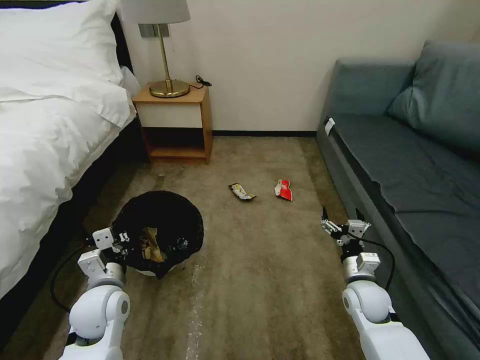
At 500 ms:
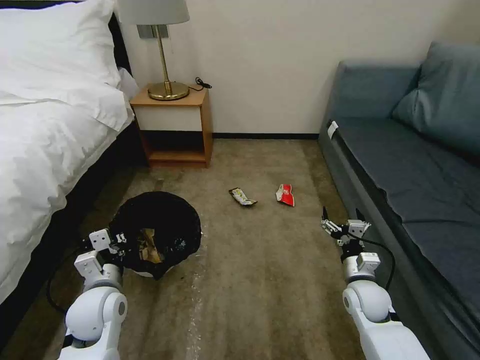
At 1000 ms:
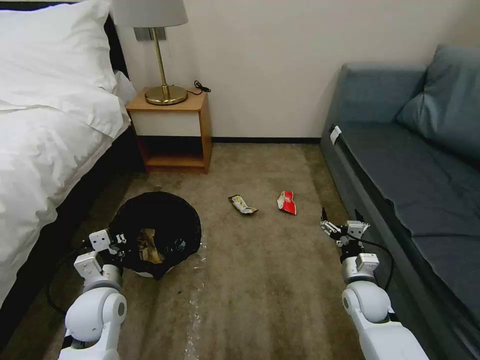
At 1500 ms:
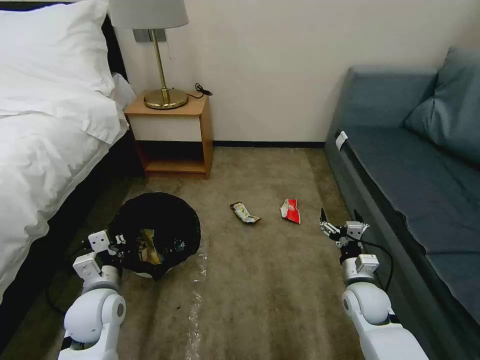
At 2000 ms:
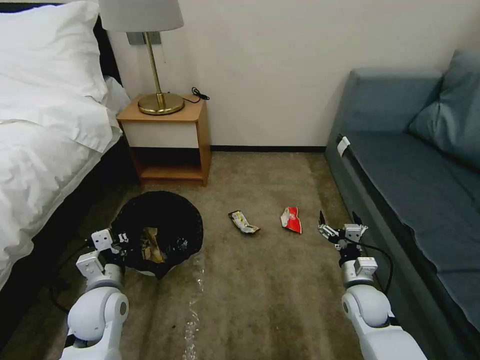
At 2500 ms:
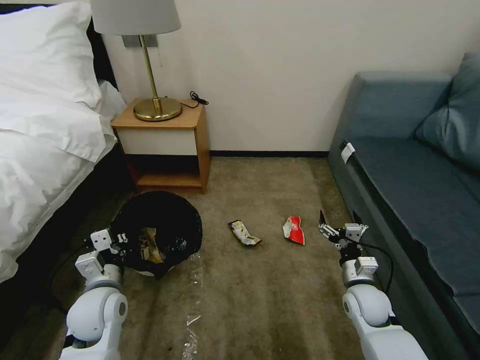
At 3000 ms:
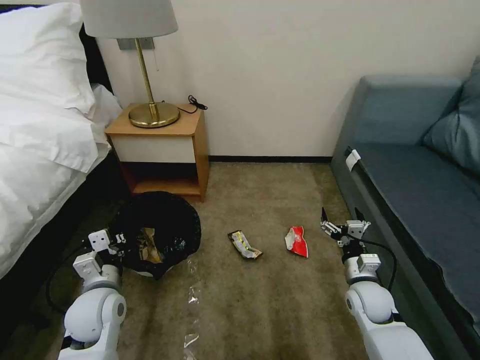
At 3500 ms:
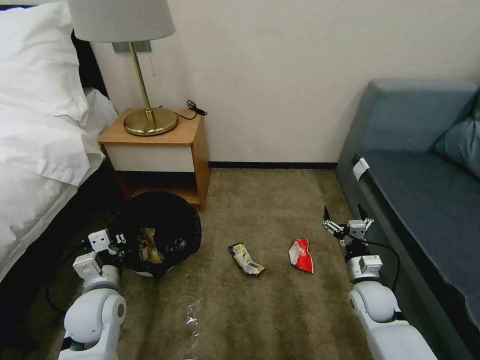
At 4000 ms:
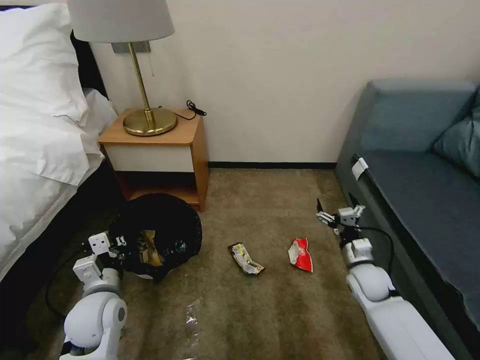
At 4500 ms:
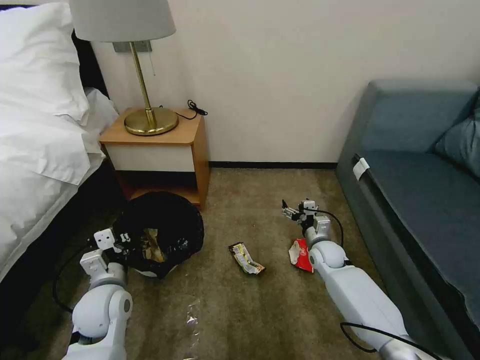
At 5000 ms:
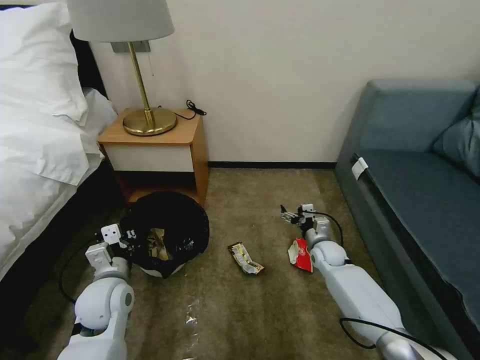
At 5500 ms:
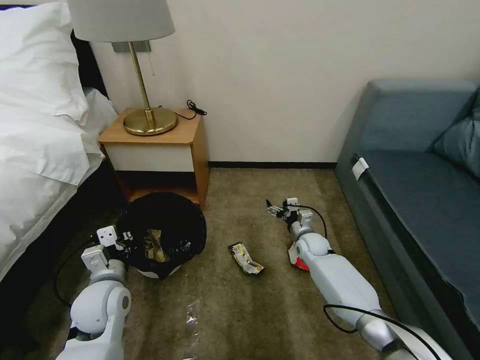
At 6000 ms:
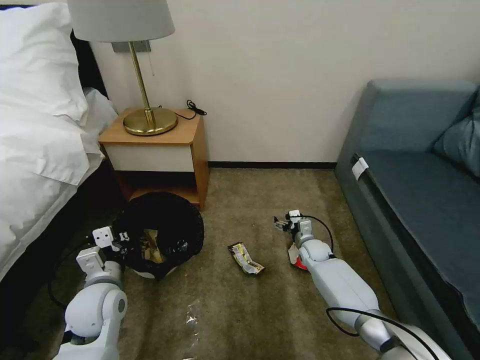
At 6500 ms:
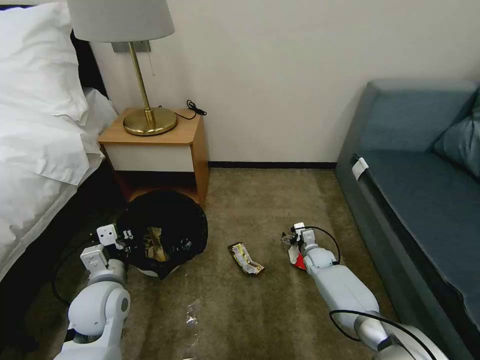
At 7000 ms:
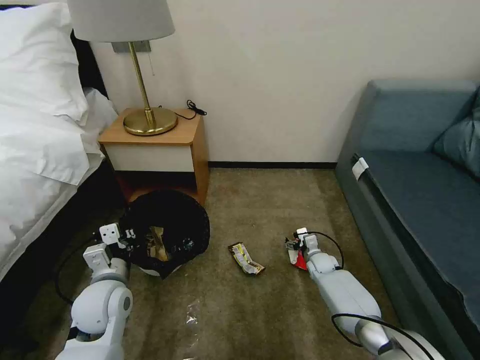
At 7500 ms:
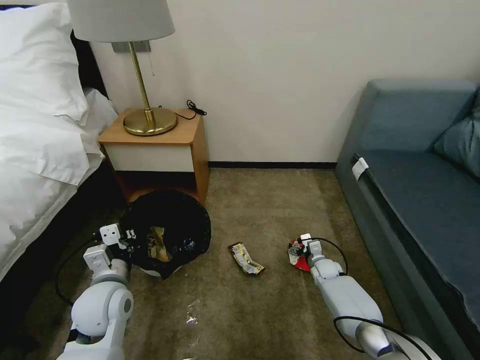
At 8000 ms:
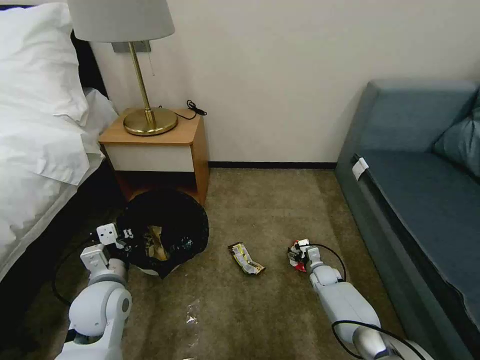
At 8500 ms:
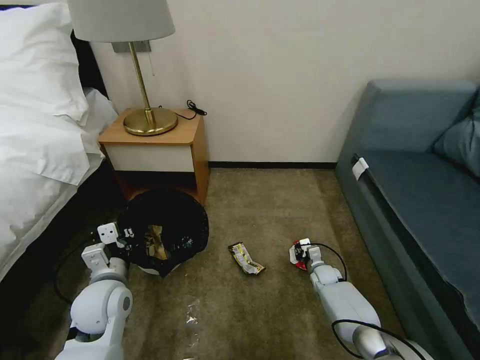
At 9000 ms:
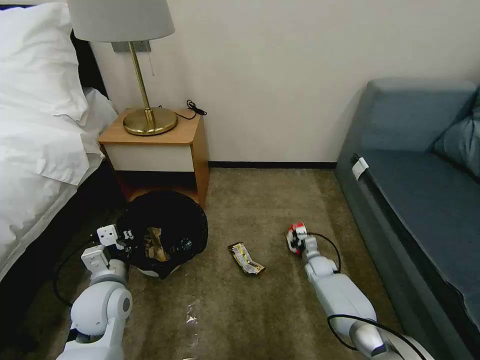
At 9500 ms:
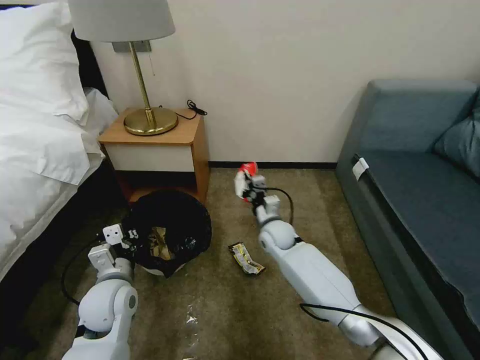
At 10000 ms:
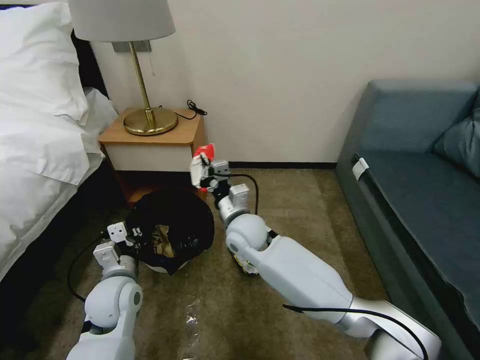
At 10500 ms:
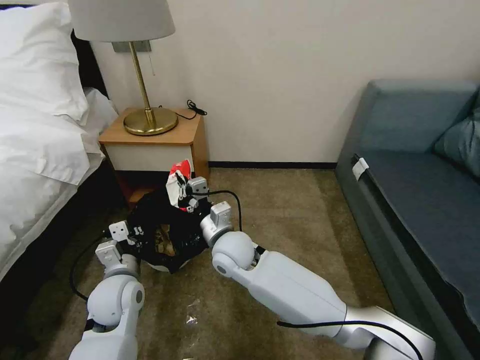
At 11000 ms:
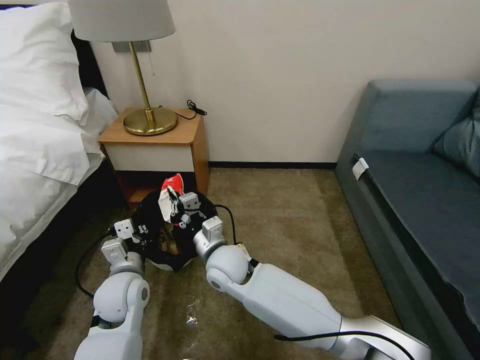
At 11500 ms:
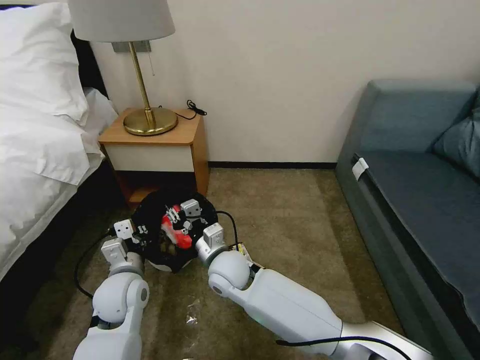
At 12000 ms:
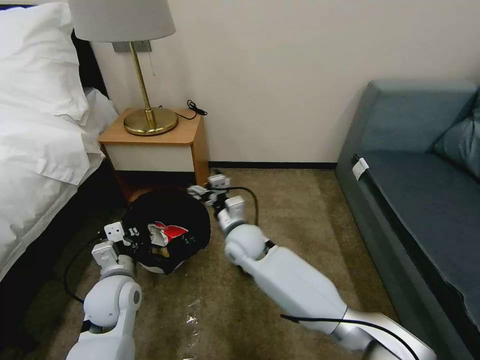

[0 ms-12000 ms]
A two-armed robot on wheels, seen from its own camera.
Task of the whole recording: Pick up the trash bin, then pick up the garbage on the floor and place it into the trash bin.
2000 ms to 4000 ms: The right gripper moves roughly 5 cm.
4000 ms to 6000 ms: The right gripper travels forward, to the left and downward by approximately 20 cm.
6000 ms to 8000 ms: The right gripper is displaced downward and backward by approximately 10 cm.
8000 ms to 10000 ms: The right gripper goes roughly 40 cm upward and to the left, and closes its fingers.
10000 ms to 12000 ms: The right gripper opens up.

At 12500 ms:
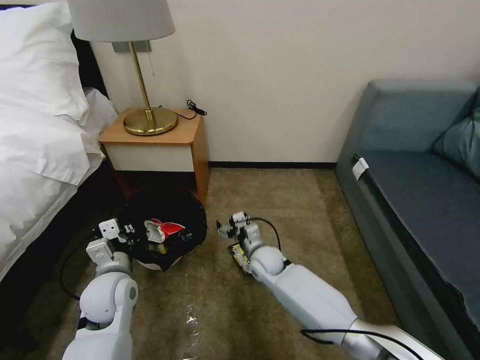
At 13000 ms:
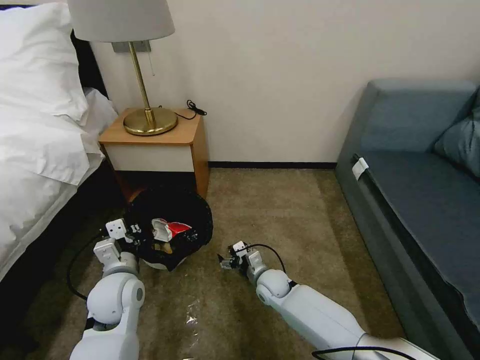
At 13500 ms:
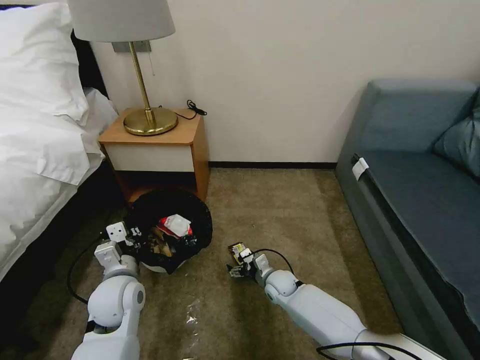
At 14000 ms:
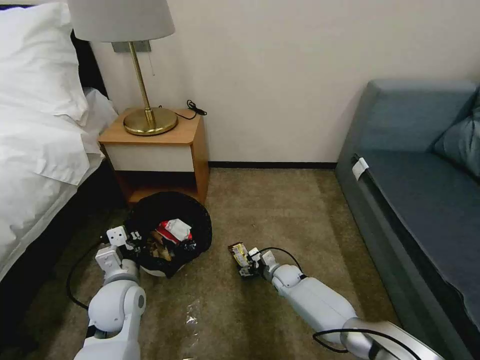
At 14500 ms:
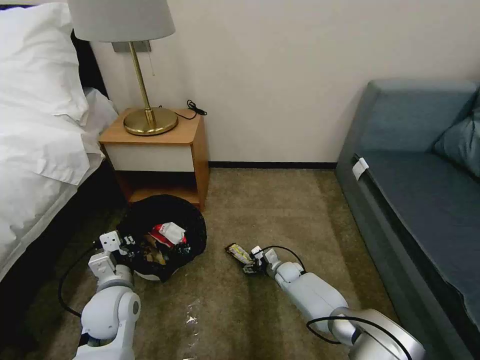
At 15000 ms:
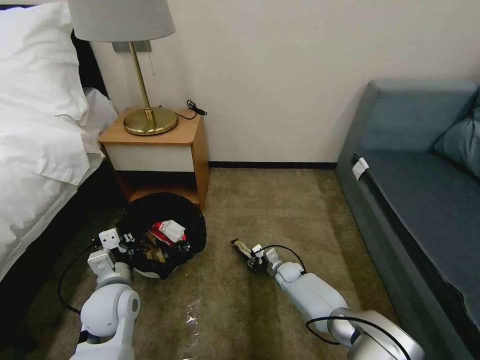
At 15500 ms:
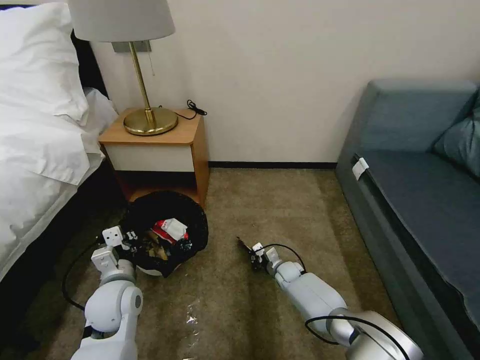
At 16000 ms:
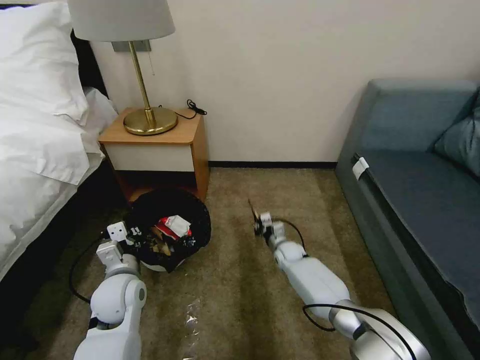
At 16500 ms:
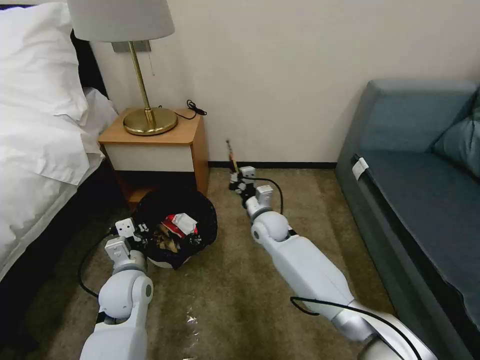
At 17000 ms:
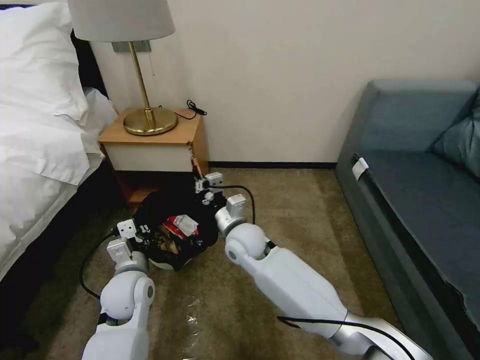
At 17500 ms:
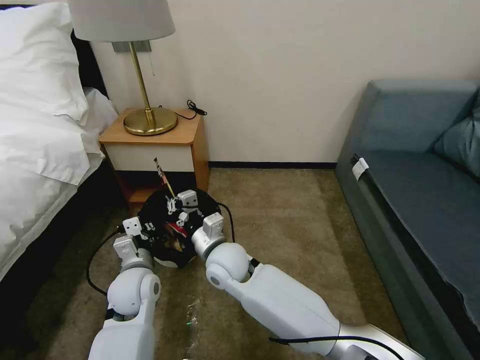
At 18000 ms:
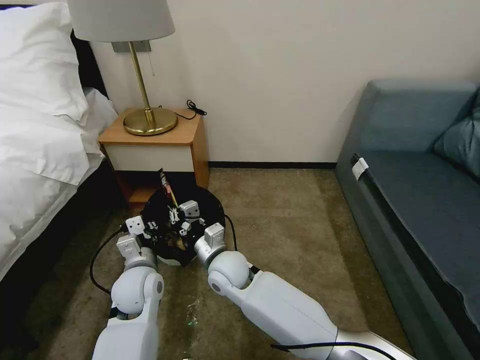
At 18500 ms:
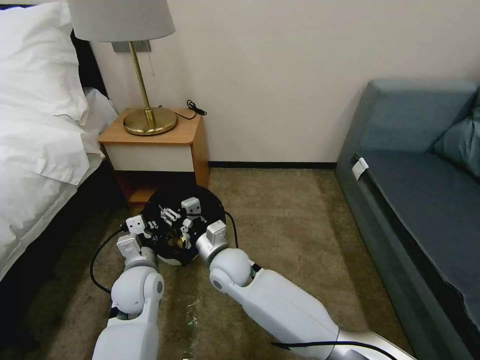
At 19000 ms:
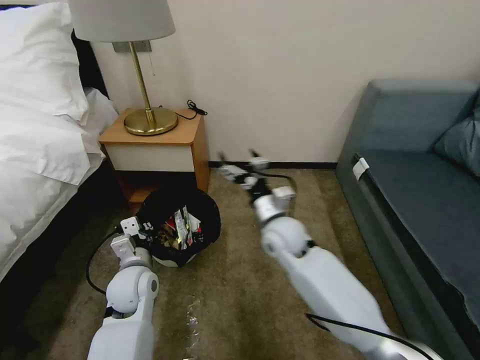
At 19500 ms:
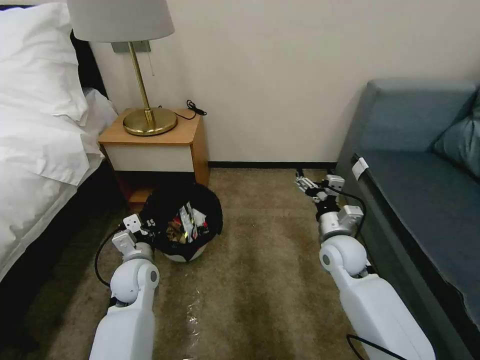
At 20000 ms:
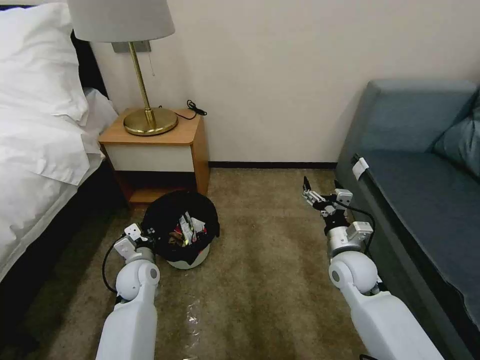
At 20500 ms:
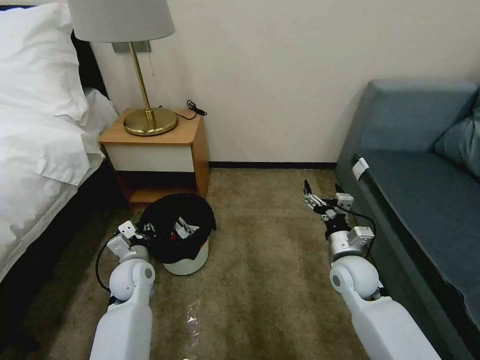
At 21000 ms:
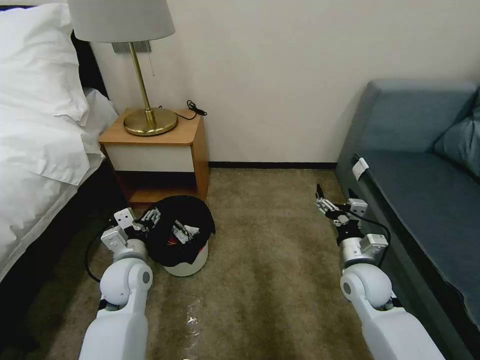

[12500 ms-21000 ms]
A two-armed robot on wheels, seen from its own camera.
Task of the whole recording: Pick up the trash bin, then pick up the garbage on the floor and place it into the trash bin.
12500 ms to 14500 ms: The right gripper goes some 20 cm downward and to the right.
14500 ms to 16500 ms: The right gripper heads upward and to the left, covering roughly 25 cm, and closes its fingers.
16500 ms to 19000 ms: The right gripper goes approximately 10 cm backward and upward, goes to the left and returns, approximately 10 cm each way, and opens its fingers.
19000 ms to 21000 ms: The left gripper moves roughly 5 cm downward and comes back, and opens its fingers. The right gripper moves to the right and backward, about 20 cm.

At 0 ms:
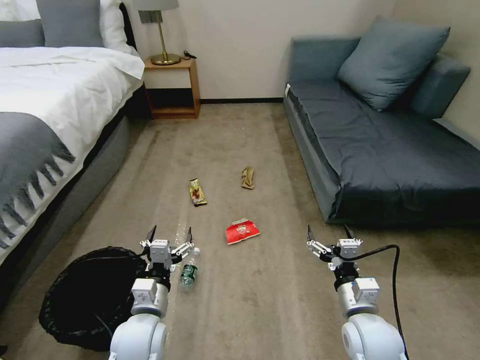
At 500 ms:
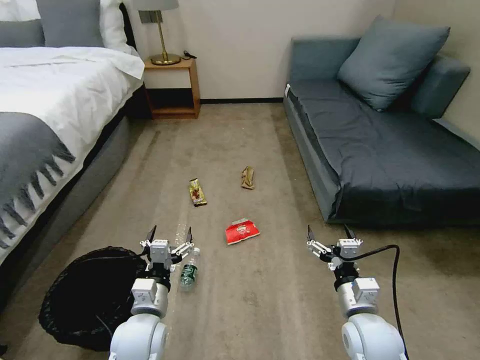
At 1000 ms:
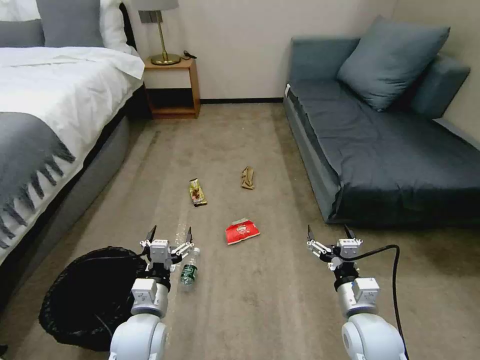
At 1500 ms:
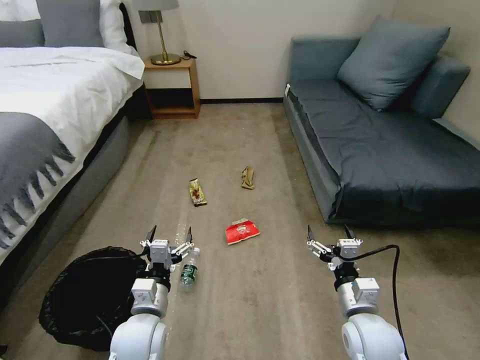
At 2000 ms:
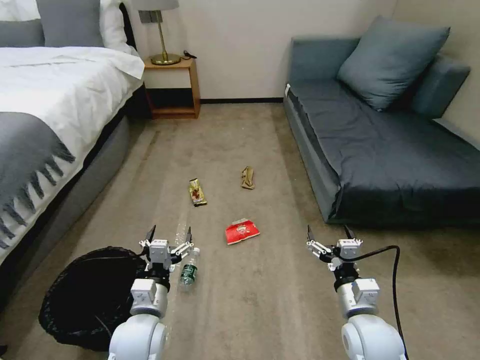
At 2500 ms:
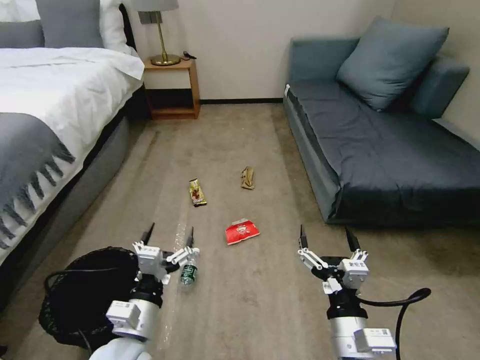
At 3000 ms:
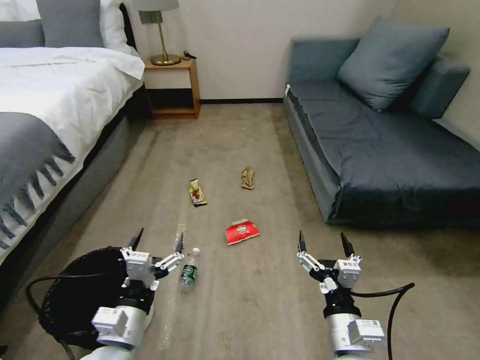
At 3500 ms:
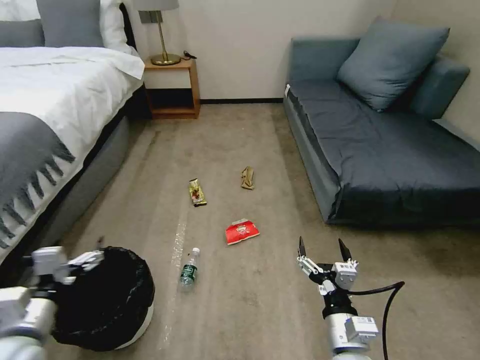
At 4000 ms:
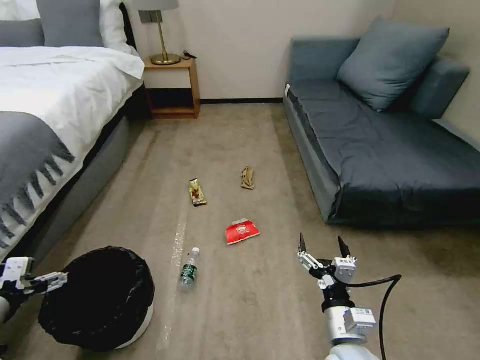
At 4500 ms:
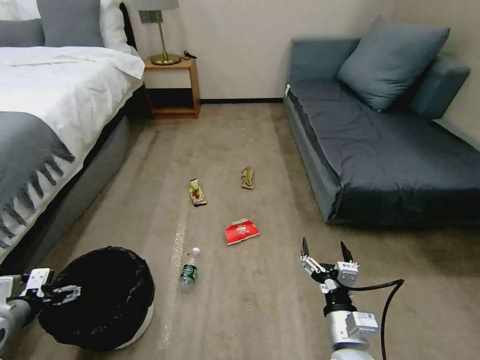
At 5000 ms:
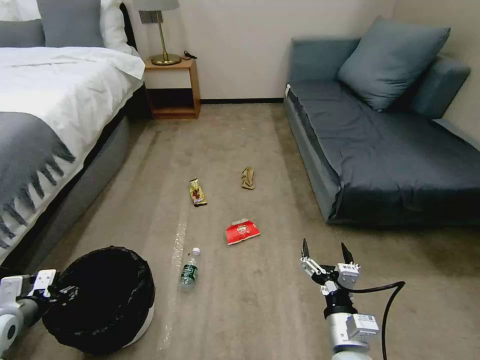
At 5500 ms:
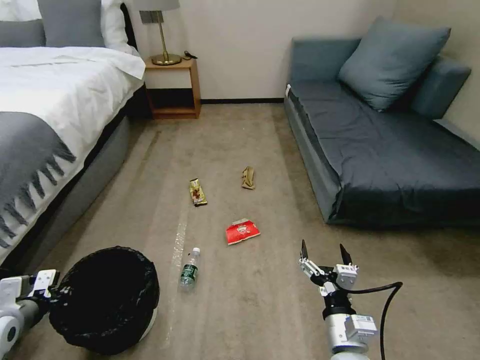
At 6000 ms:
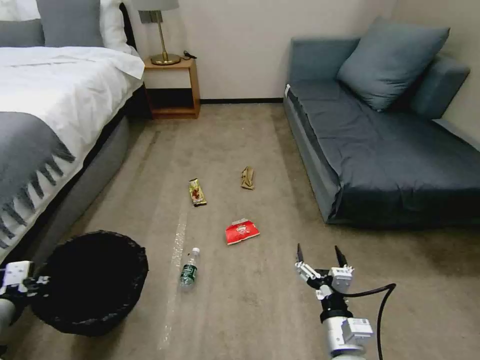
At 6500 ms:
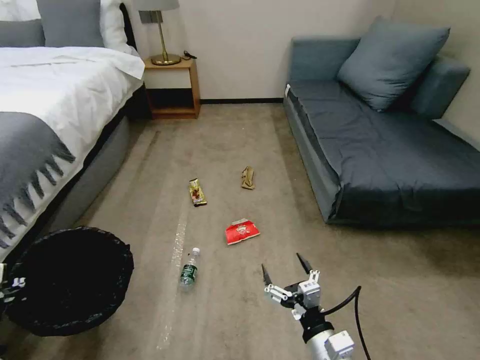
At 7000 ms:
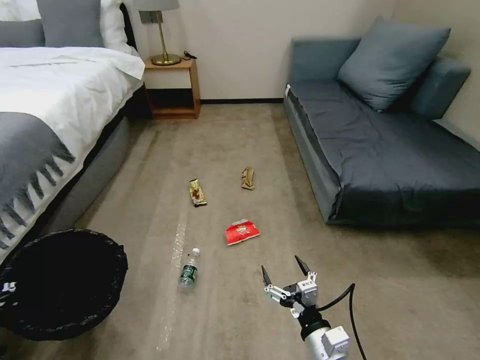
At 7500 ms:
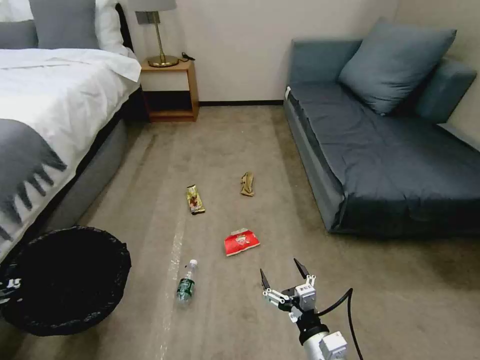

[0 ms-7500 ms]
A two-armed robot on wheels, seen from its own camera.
Task of the whole recording: Pick up the trash bin, then pick up the garbage on the floor and place it into the trash bin.
2000 ms to 4000 ms: The right gripper moves to the left and backward, some 5 cm. The left gripper travels to the left and upward by approximately 30 cm.
4000 ms to 5500 ms: The left gripper goes approximately 5 cm downward, and closes.
5500 ms to 7500 ms: The left gripper is displaced upward and backward by some 10 cm.
